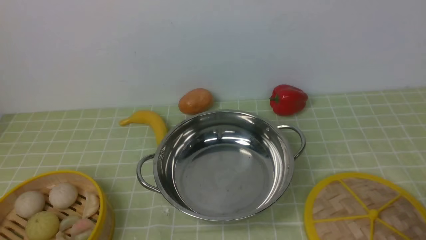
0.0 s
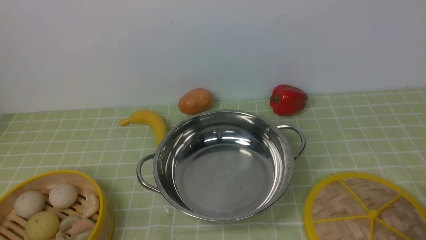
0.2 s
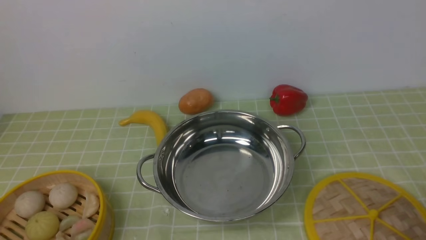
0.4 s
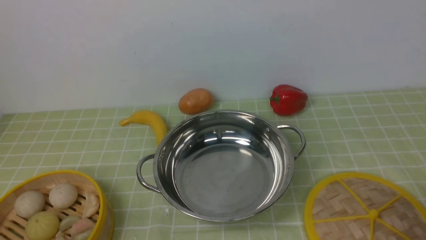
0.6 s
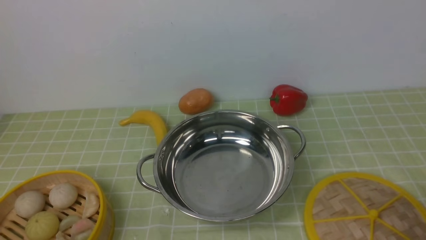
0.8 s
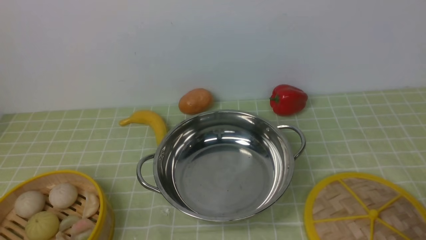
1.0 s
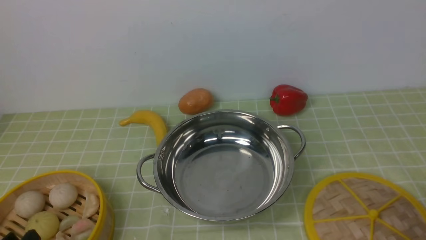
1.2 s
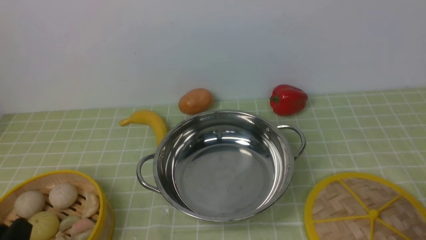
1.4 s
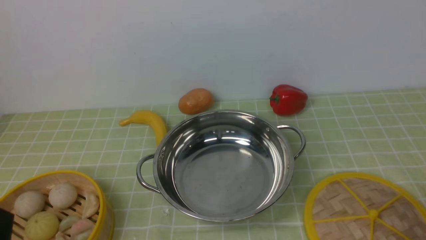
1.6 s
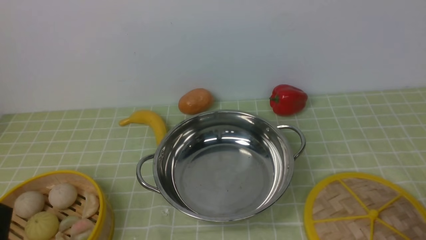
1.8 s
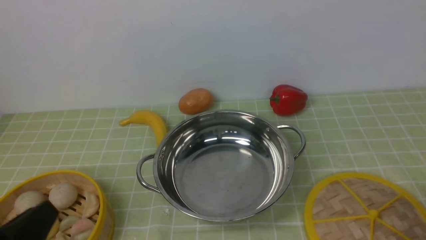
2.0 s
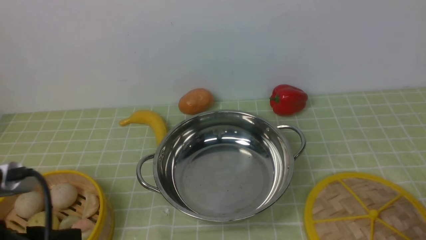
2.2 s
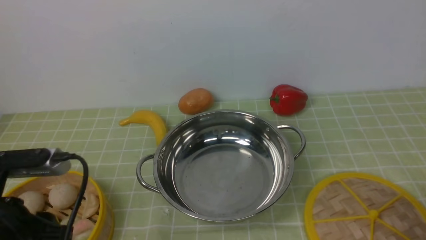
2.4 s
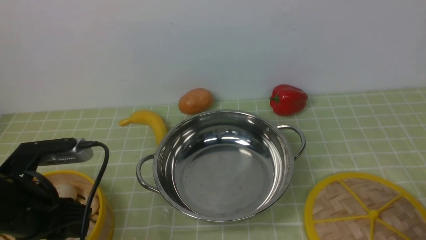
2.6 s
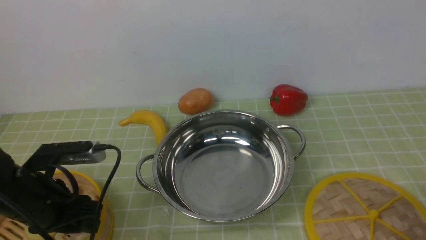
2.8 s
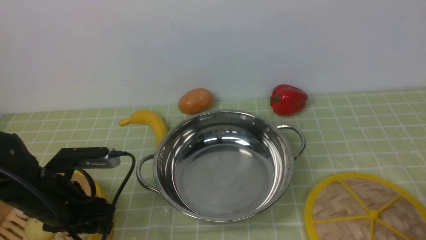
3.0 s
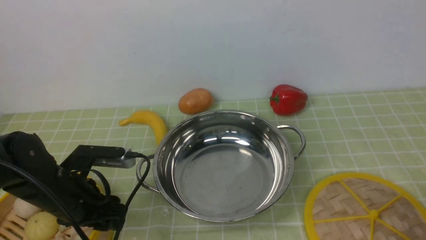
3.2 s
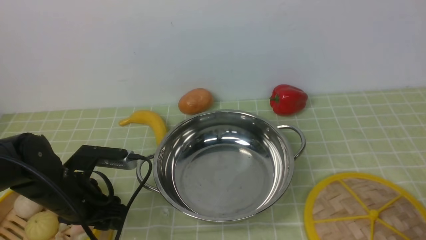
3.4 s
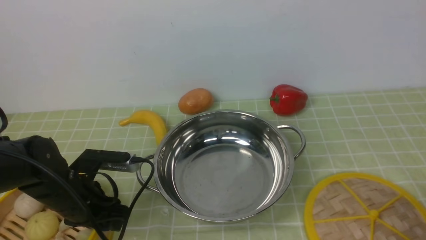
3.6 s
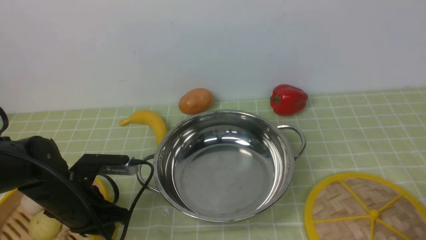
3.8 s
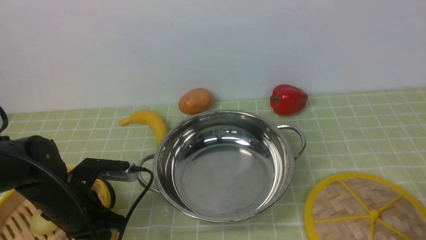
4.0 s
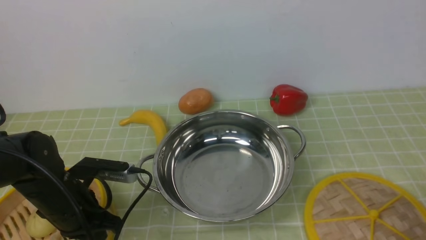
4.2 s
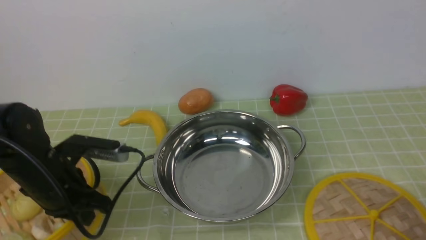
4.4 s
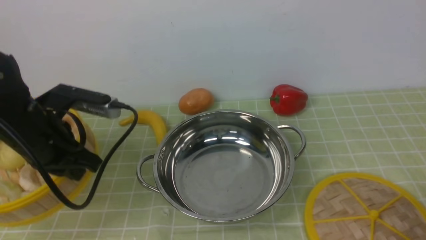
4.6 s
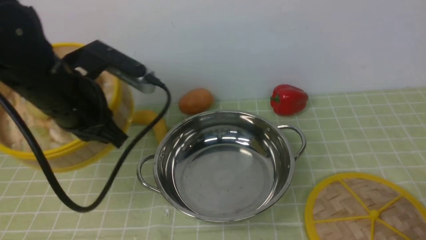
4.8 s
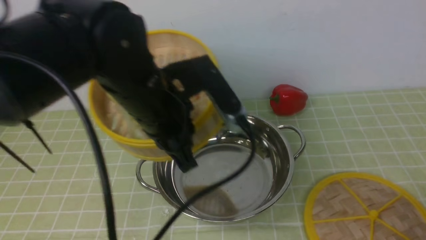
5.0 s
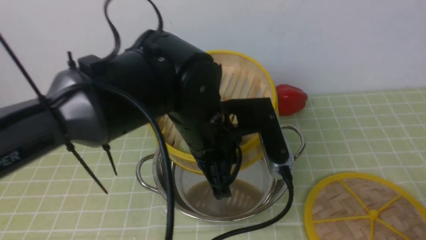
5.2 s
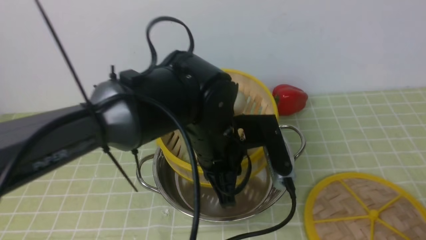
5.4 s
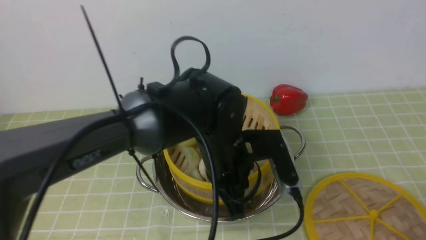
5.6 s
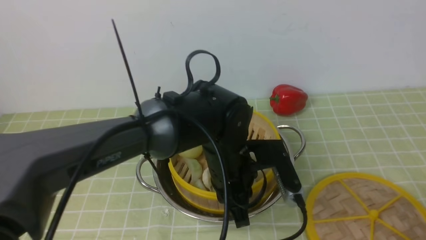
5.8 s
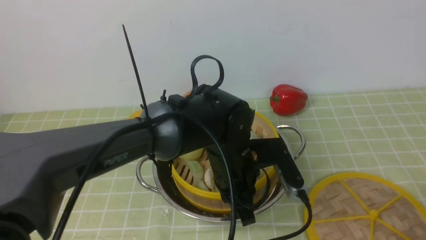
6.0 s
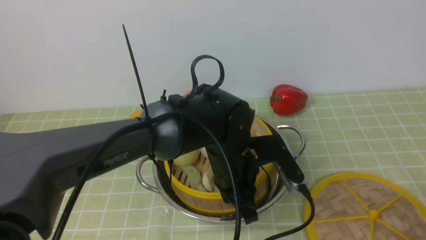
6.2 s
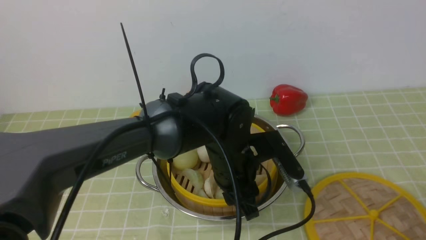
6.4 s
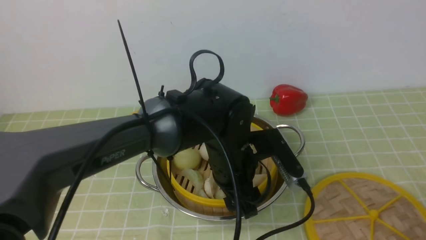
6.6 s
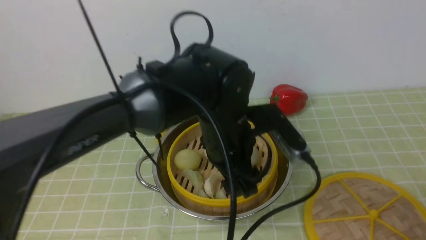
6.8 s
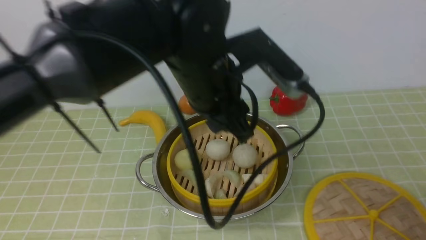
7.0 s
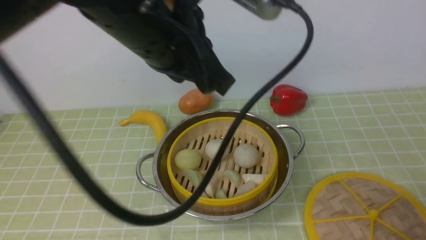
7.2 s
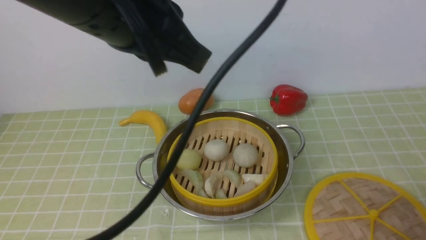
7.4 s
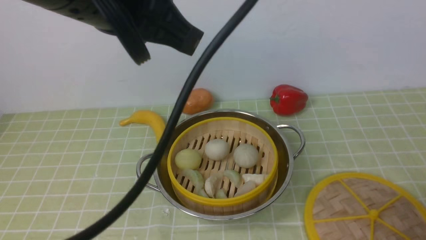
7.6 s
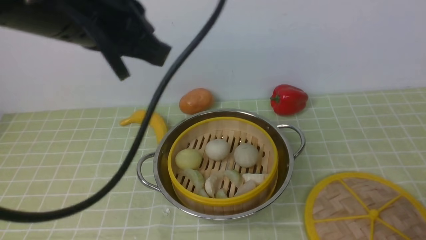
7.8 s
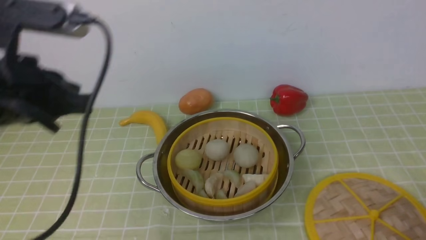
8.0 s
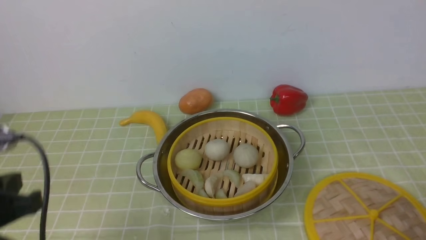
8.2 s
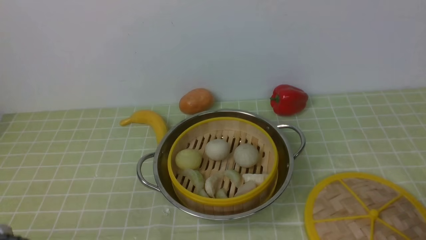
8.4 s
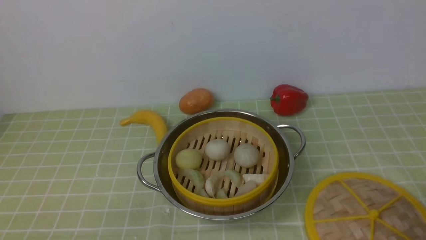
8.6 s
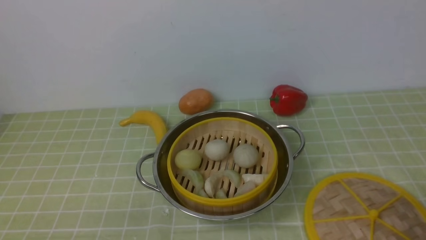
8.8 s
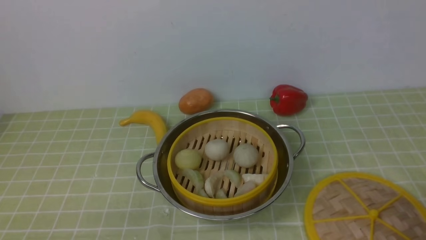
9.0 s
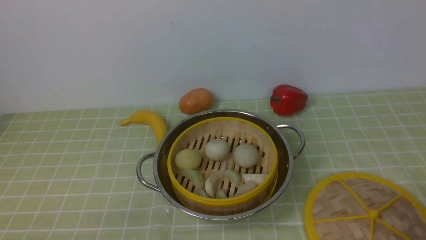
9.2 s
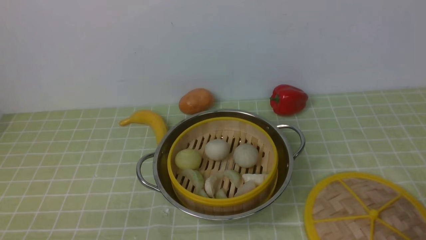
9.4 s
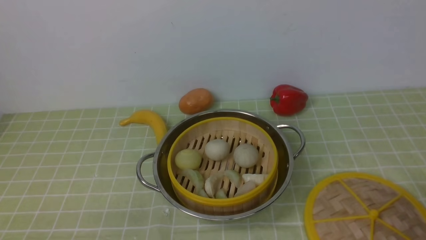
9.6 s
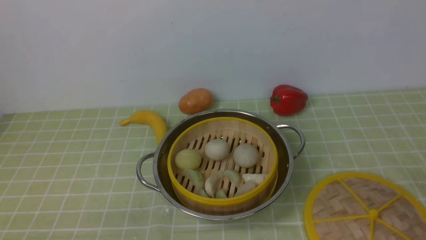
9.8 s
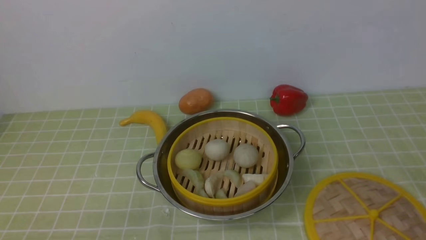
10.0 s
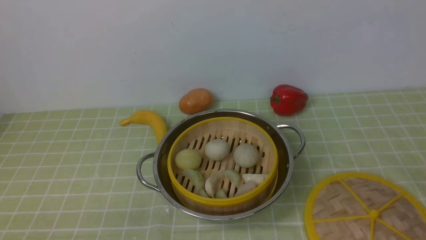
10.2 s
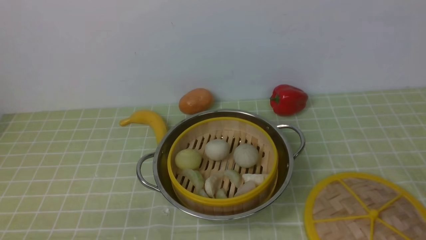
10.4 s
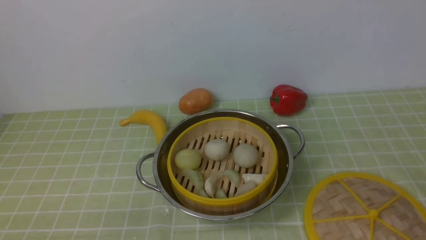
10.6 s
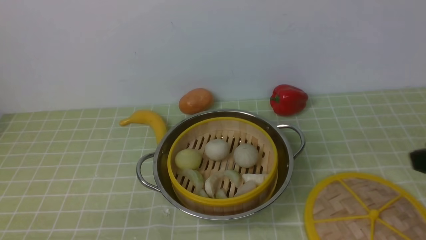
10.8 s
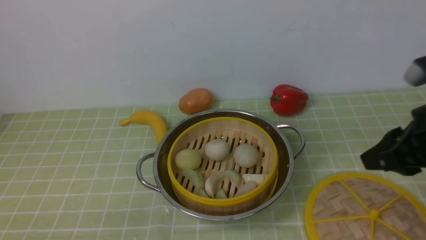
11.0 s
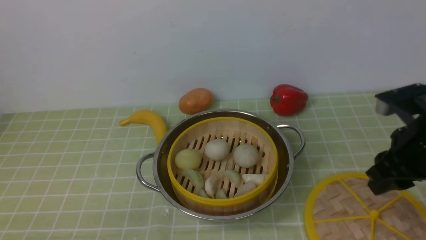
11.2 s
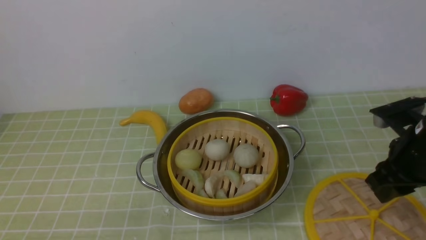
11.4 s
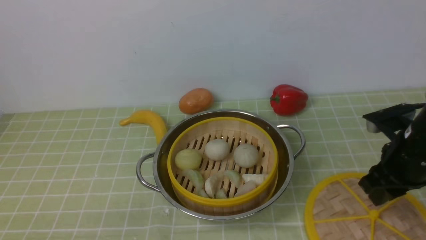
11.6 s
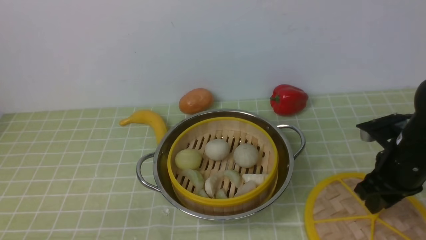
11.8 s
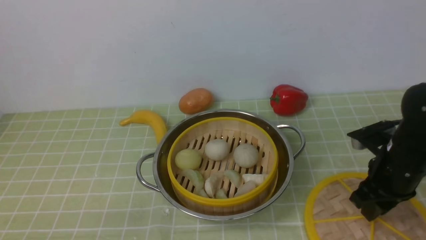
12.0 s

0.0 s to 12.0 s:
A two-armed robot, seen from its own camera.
Task of the whole recording: place the steamer in the pot on the green tablecloth, and put the lid on the steamer.
Step, 0.0 to 4.6 s: use the left arm to lift the steamer closest to it.
Step, 4.8 to 6.8 s: use the left arm to put the steamer into the iron steamer pot in the middle.
1.6 to 3.0 s: The left gripper shifts approximately 15 cm forward.
3.0 to 4.4 s: The left gripper closes.
4.4 to 6.0 s: The left gripper shifts some 25 cm to the right.
6.0 to 7.6 s: The left gripper shifts about 25 cm upward, and opens, then closes again.
7.6 to 9.0 s: The left gripper shifts about 40 cm downward, to the left and backward.
10.4 to 12.0 s: The right gripper moves forward and downward, some 30 cm.

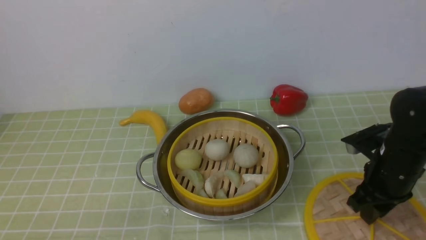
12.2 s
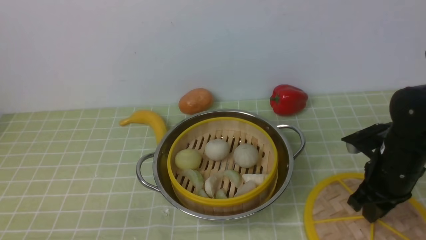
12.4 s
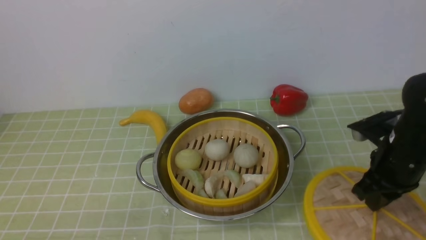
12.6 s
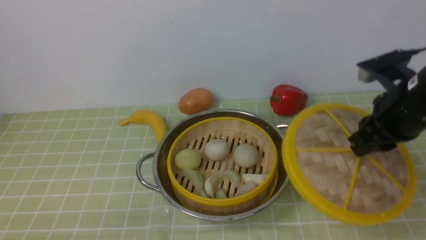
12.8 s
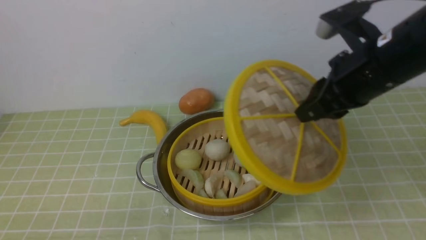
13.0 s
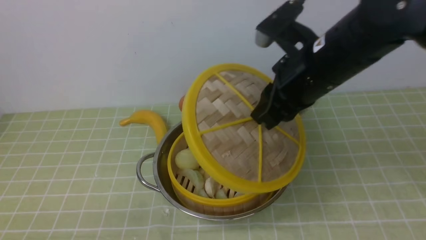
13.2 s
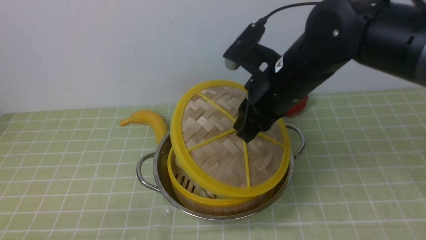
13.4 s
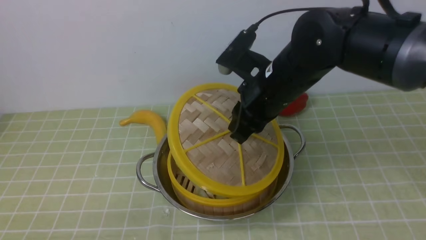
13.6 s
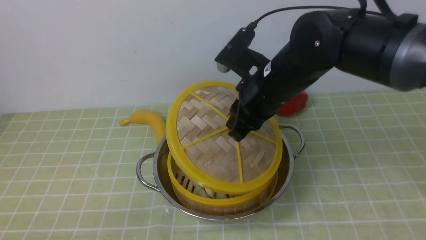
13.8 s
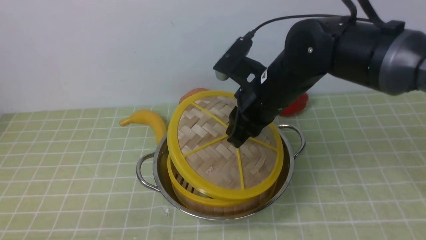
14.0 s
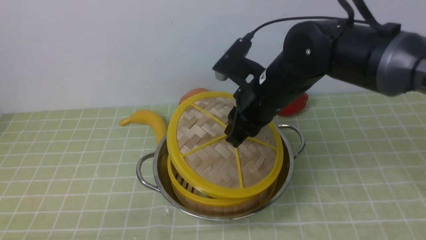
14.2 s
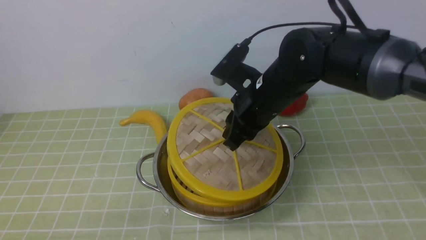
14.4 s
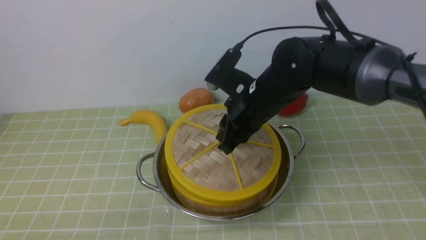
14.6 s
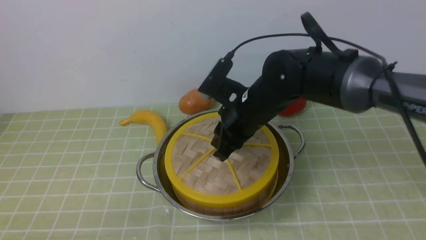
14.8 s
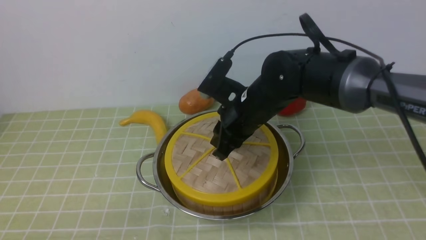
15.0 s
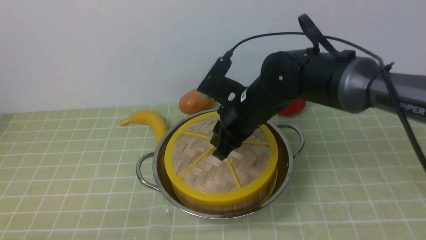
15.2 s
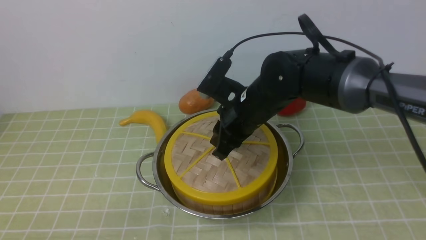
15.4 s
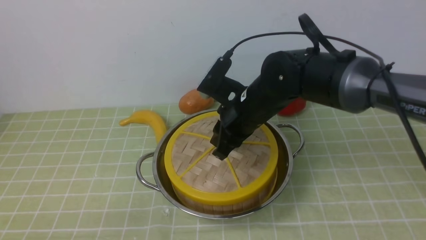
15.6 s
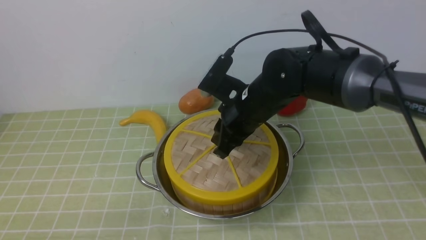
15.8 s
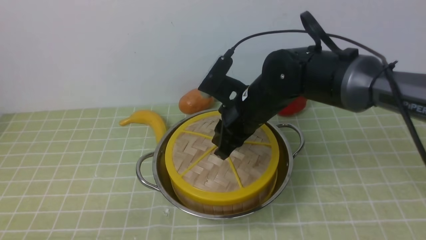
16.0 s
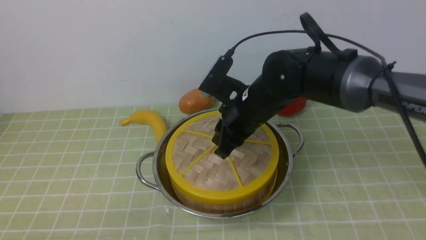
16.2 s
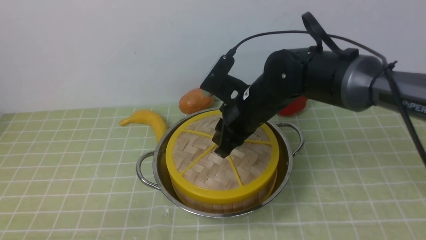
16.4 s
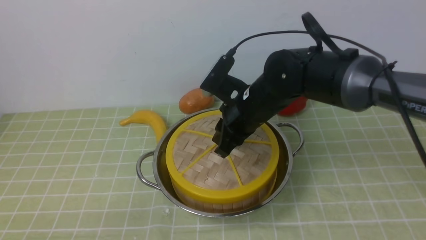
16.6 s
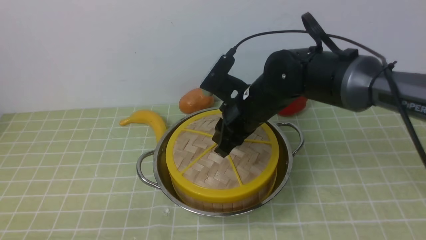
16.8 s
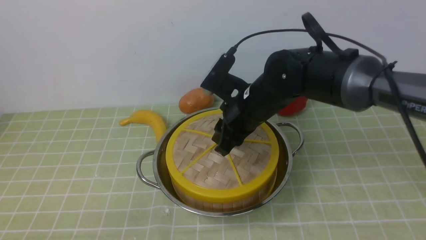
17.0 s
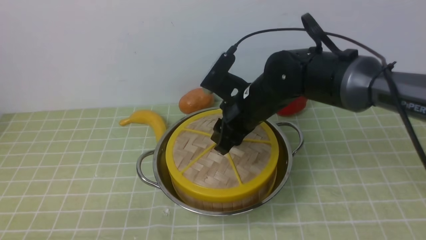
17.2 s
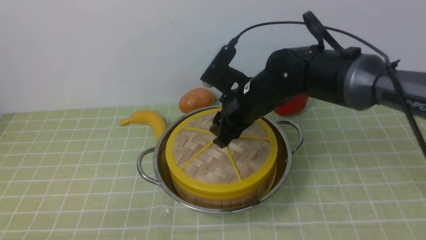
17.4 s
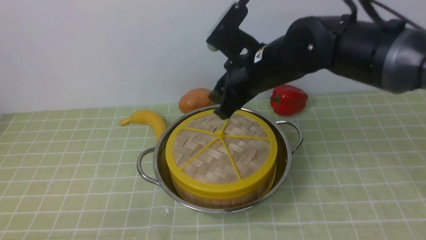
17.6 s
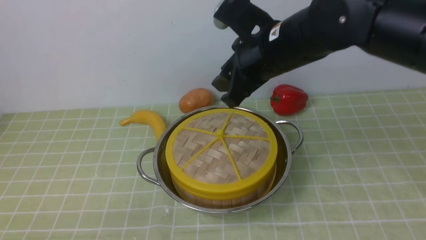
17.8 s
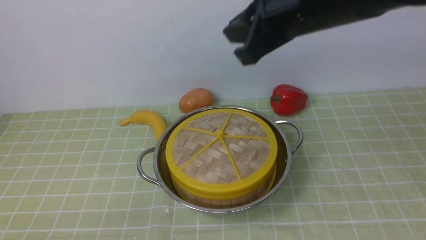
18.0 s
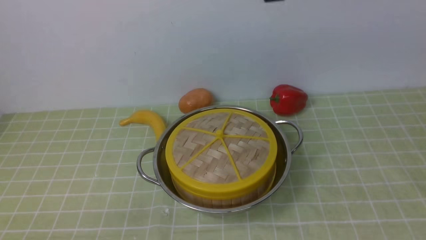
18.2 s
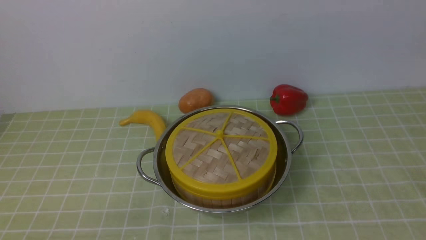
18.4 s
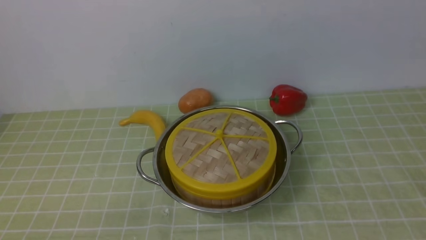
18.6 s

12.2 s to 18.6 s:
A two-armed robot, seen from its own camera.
Task of the whole recording: place the steamer in the pot on the green tablecloth, and put the lid on the steamer.
Step, 13.0 to 18.0 s: use the right arm to place the steamer lid on the steamer.
12.2 to 13.8 s: The right gripper shifts approximately 20 cm to the left and upward.
13.8 to 15.4 s: The right gripper travels downward by approximately 5 cm.
15.4 to 17.0 s: Neither gripper changes place.
17.0 to 18.6 s: The right gripper heads upward and backward, covering about 30 cm, and closes.
